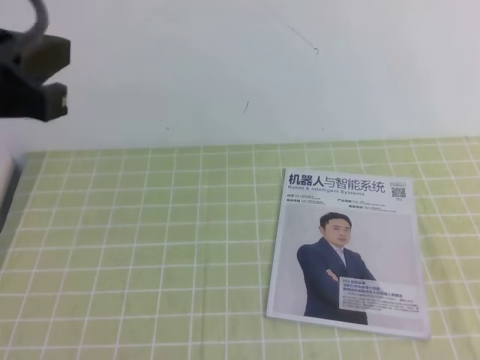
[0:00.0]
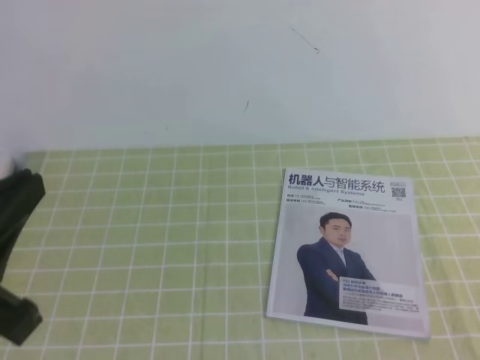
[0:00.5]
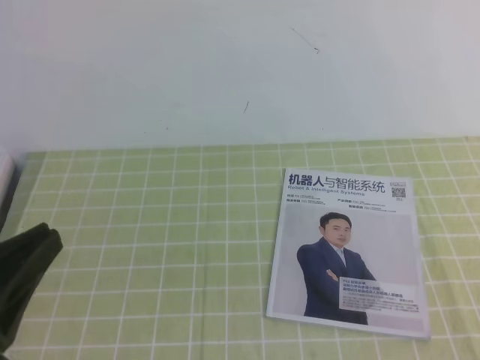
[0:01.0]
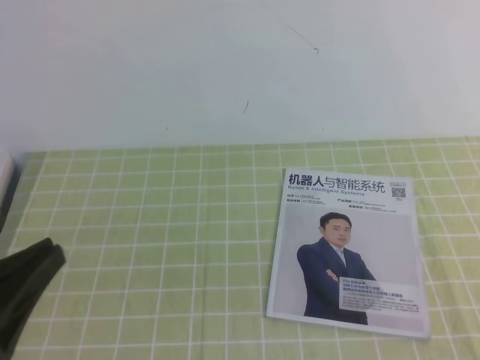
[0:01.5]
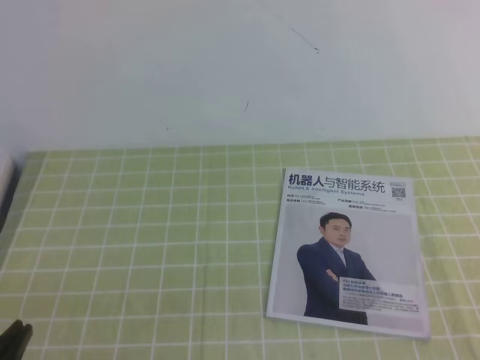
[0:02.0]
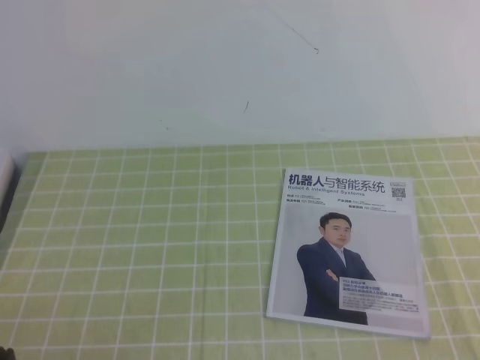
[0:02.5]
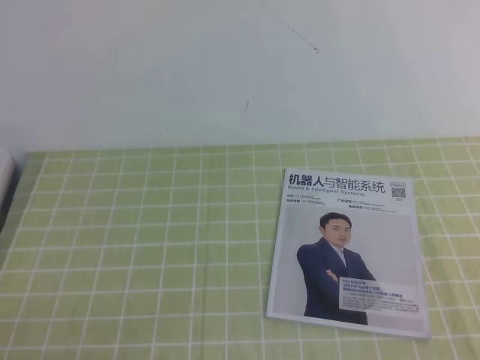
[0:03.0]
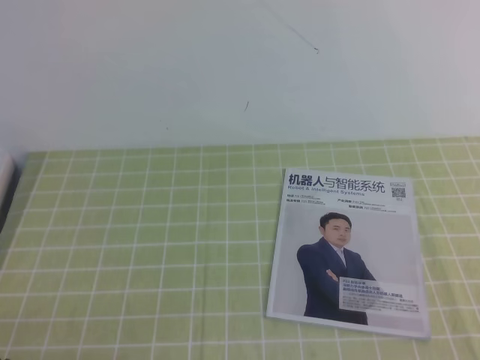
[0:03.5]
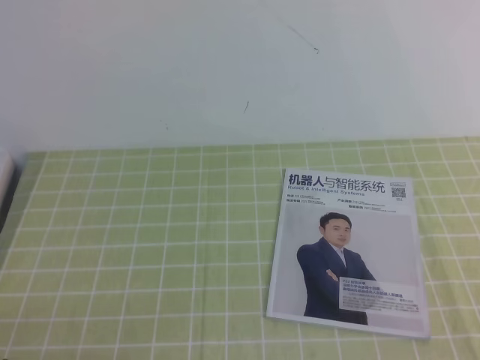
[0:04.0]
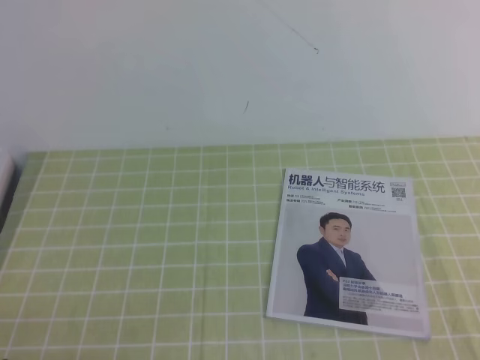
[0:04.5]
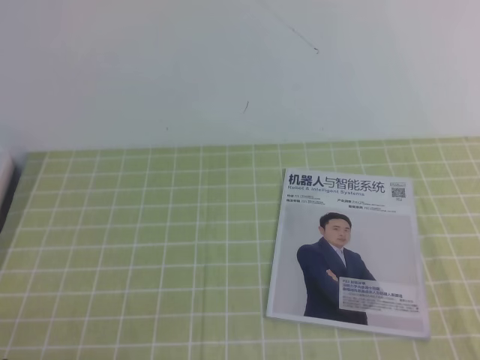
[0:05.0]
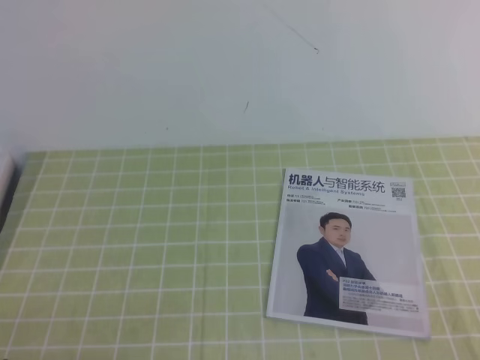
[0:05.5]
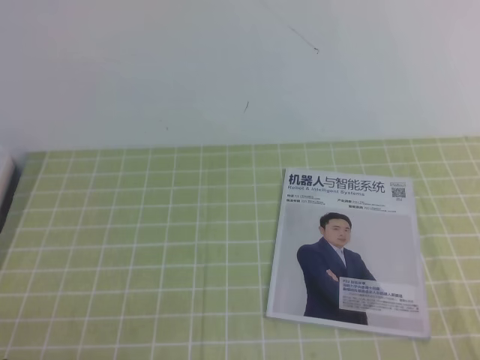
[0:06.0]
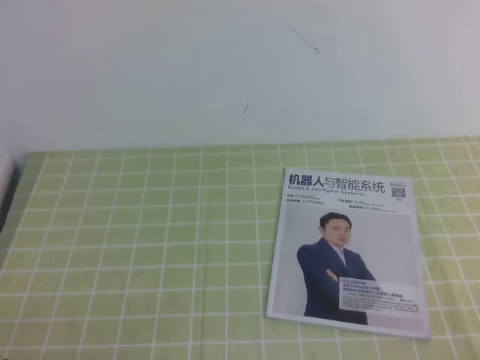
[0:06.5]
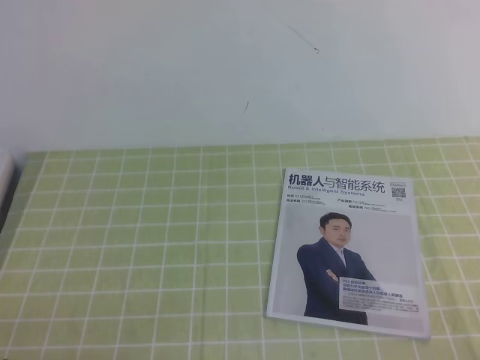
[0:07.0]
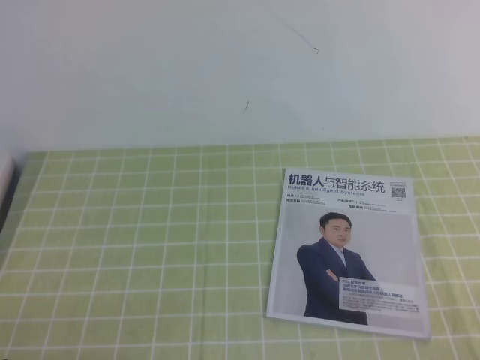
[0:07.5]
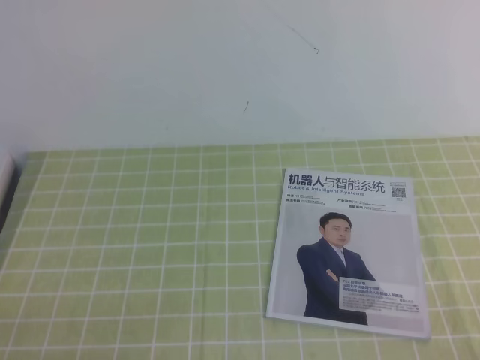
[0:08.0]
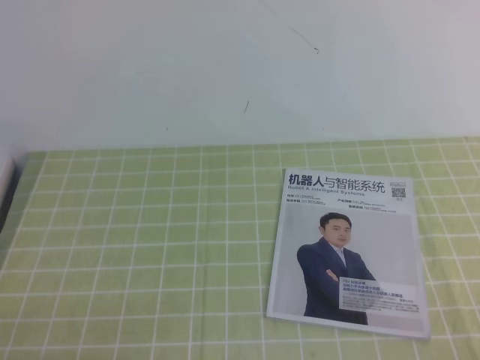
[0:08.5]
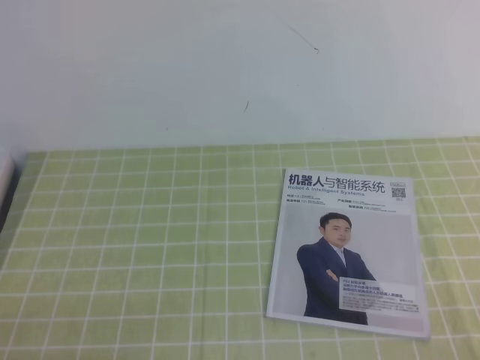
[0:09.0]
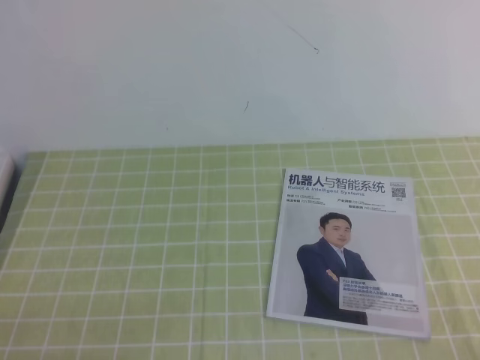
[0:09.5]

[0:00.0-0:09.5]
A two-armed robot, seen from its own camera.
Task of the whole recording: on the green tablecloth, hold the book with one hand and close it with the other.
Step, 0:00.0 to 0:09.5: Close the open book.
0:00.0 to 0:02.0: The left gripper is displaced downward and backward by about 25 cm. The right gripper shifts some 5 cm downward.
